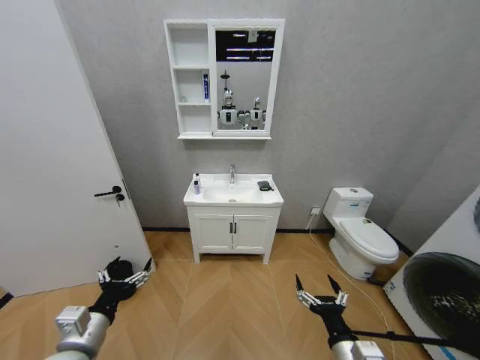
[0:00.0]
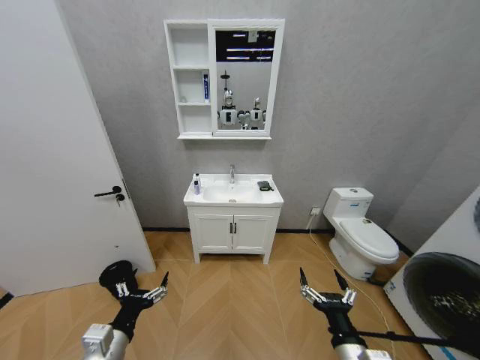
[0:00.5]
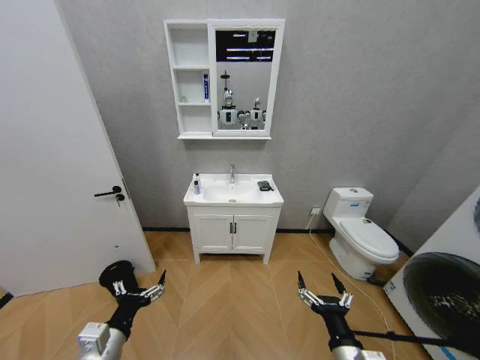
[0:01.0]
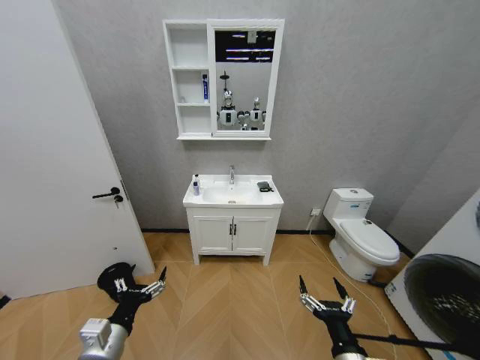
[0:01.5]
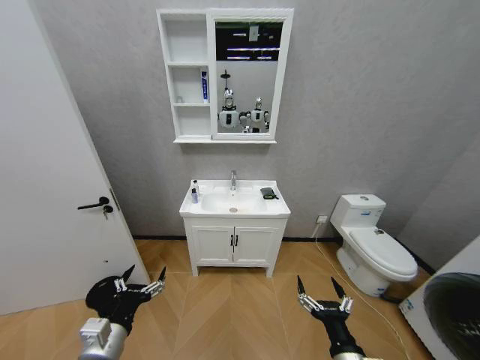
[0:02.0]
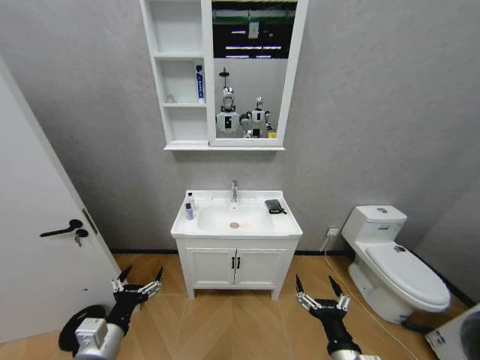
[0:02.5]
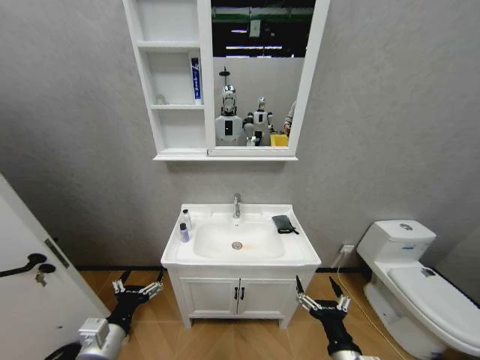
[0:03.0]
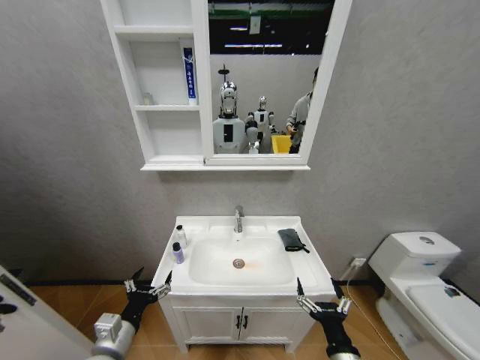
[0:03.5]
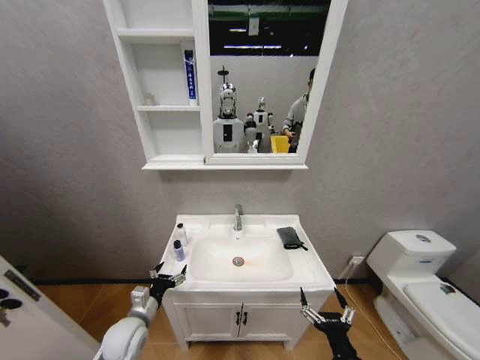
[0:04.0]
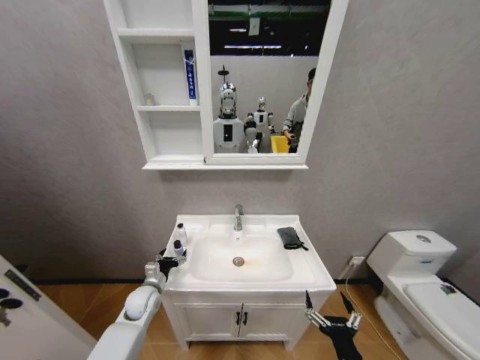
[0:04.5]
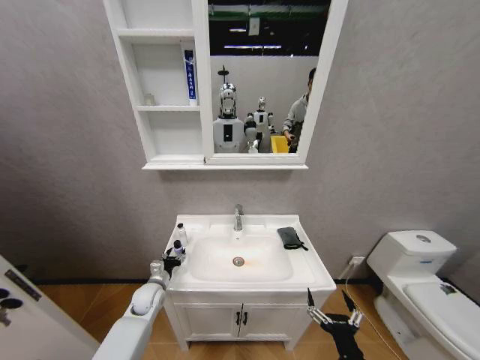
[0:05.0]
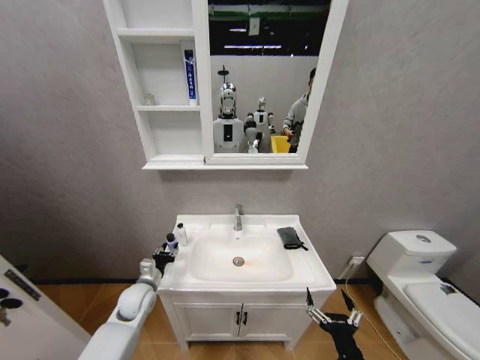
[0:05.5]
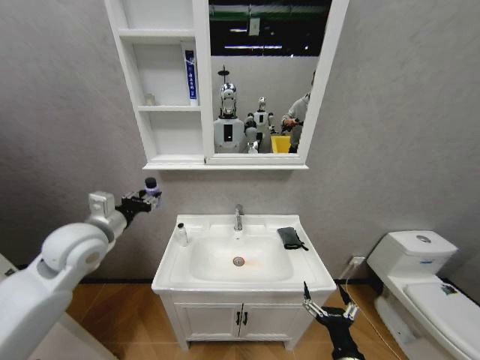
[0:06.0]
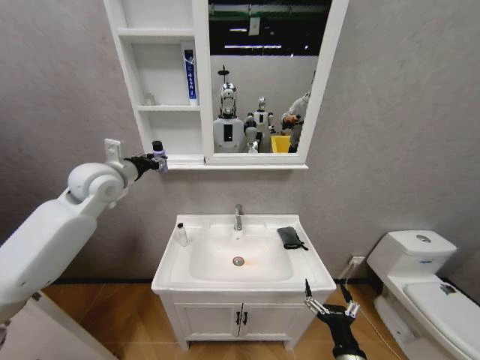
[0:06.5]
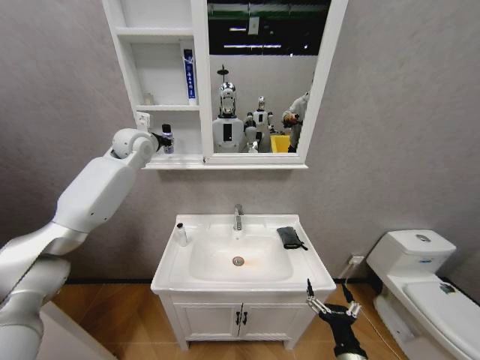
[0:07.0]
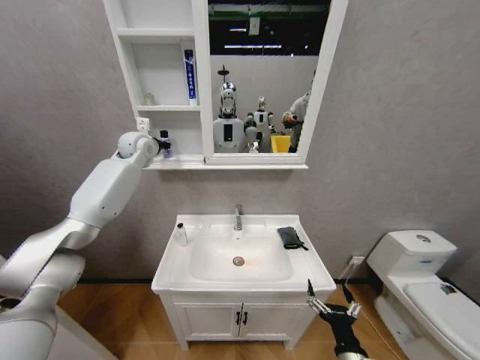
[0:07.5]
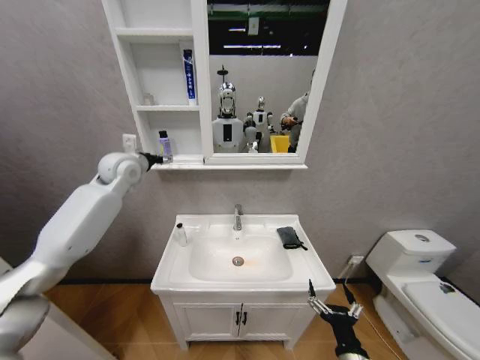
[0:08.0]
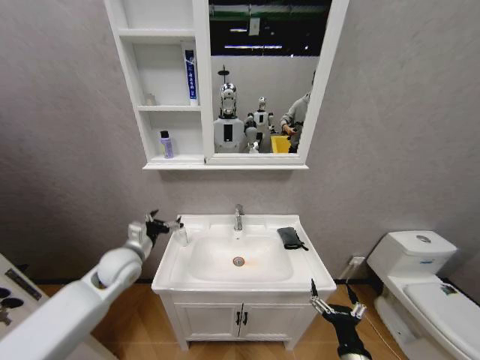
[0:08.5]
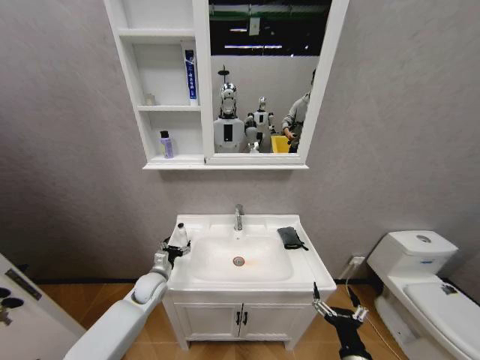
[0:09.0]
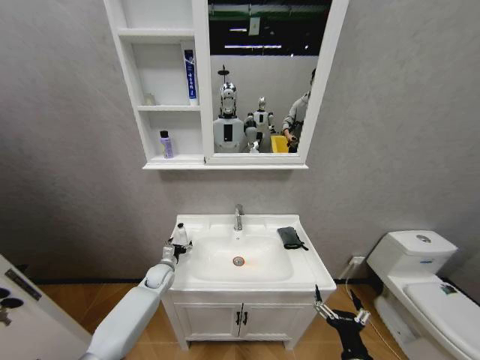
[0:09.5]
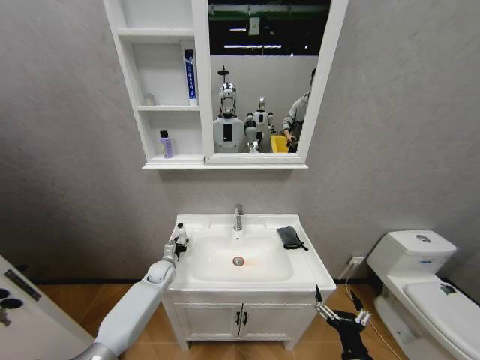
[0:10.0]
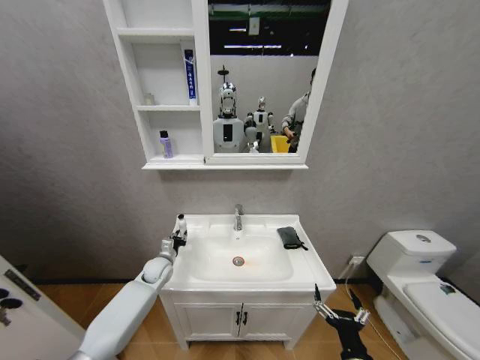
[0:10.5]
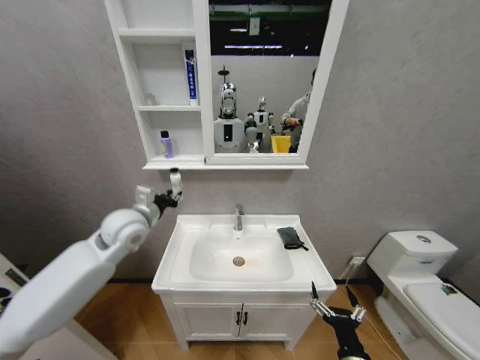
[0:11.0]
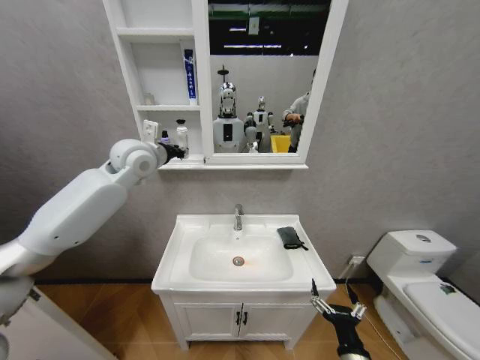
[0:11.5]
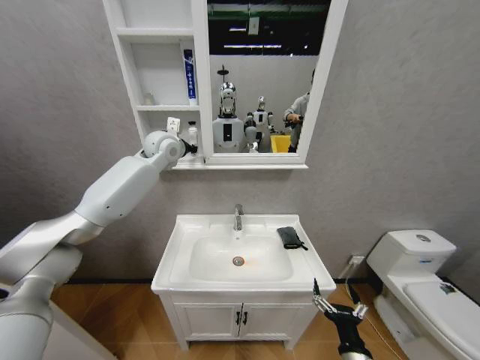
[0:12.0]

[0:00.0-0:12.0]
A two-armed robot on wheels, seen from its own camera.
Task of the whole recording: Move facial cleanser and shampoo from washbasin to cabinet, then wipe washbasin with towel.
0:02.0 to 0:04.0: The left gripper is displaced forward and downward by roughly 15 cm.
0:04.0 to 0:06.0: The left gripper is displaced upward by approximately 25 cm, and closes its fingers.
0:06.0 to 0:08.0: The left gripper heads forward, covering roughly 20 cm, and opens.
0:08.0 to 0:10.0: The left gripper goes some 40 cm downward, and closes its fingers.
0:10.0 to 0:12.0: The left gripper shifts some 50 cm upward, and closes up.

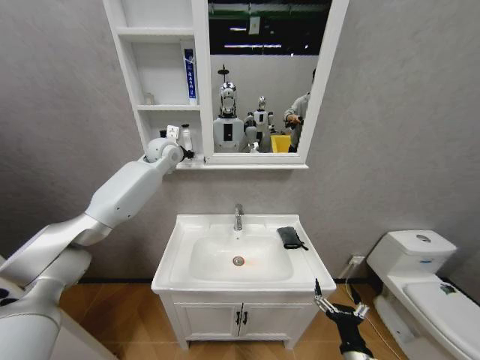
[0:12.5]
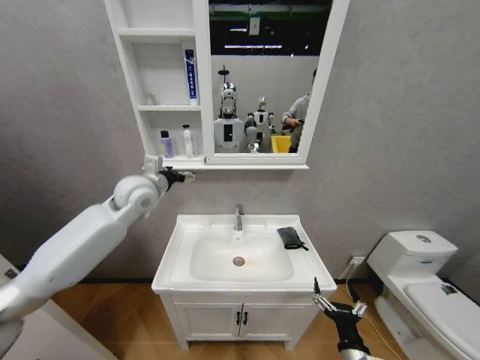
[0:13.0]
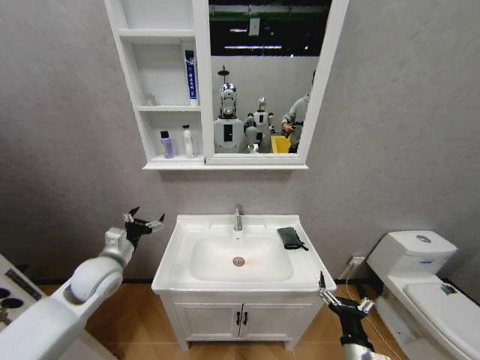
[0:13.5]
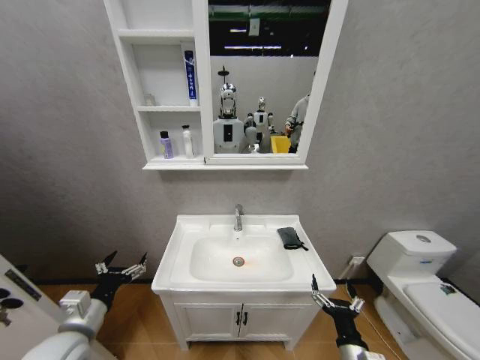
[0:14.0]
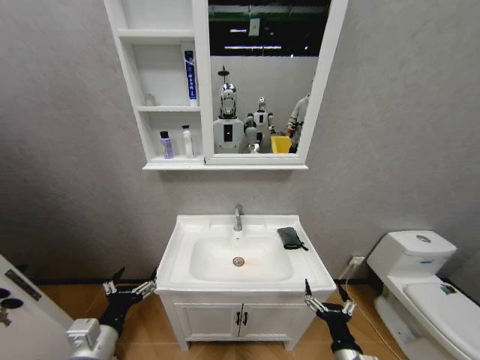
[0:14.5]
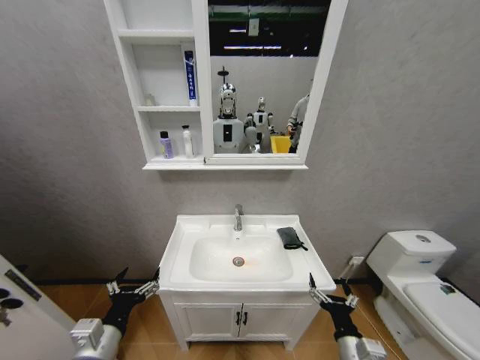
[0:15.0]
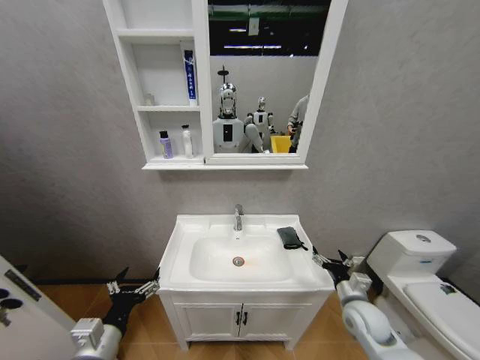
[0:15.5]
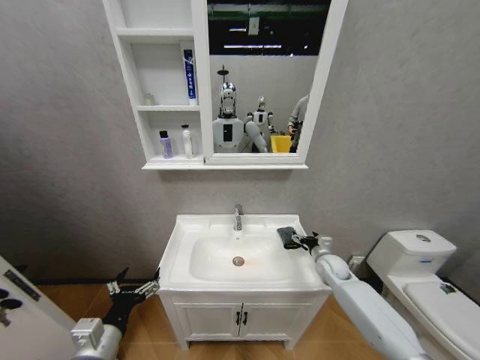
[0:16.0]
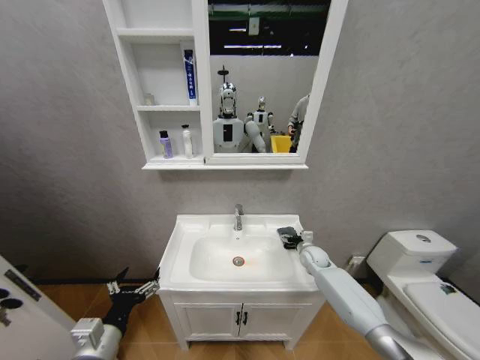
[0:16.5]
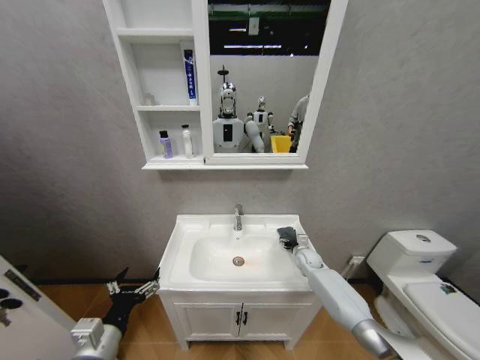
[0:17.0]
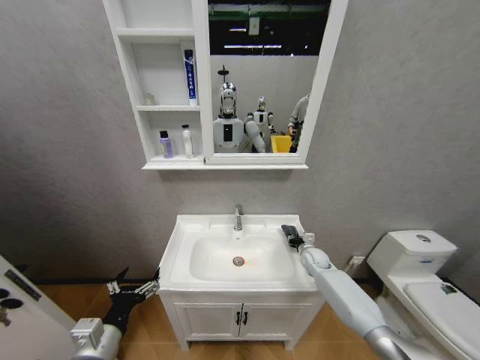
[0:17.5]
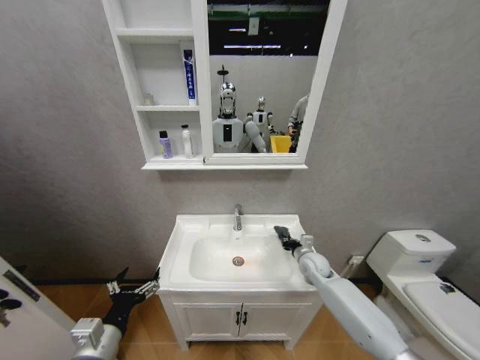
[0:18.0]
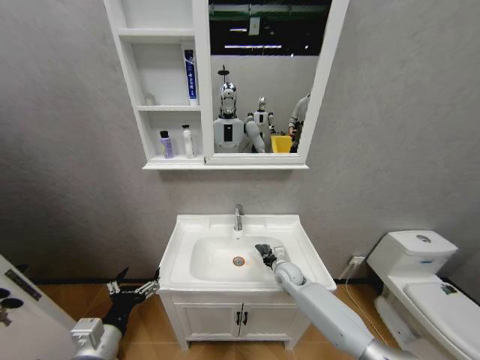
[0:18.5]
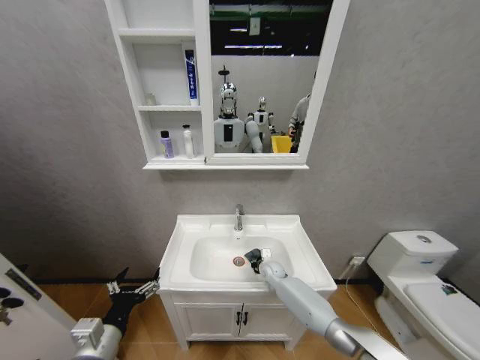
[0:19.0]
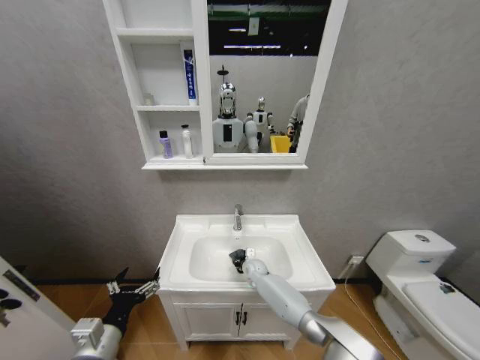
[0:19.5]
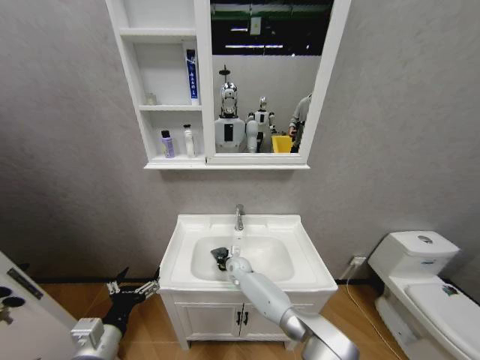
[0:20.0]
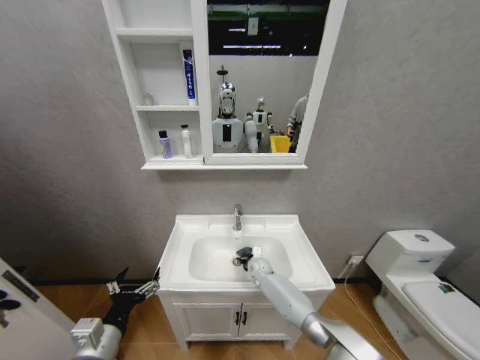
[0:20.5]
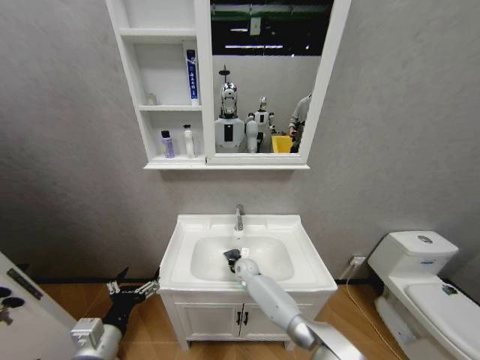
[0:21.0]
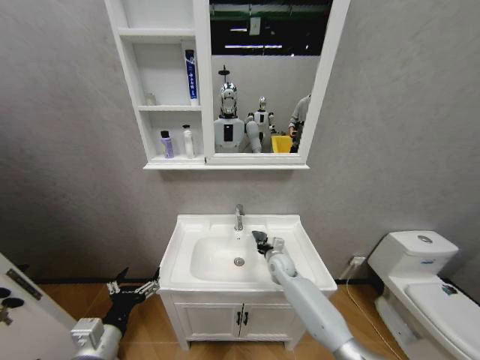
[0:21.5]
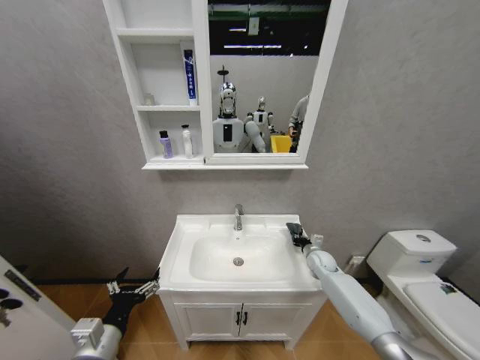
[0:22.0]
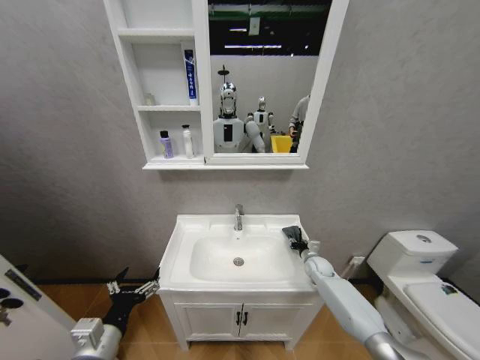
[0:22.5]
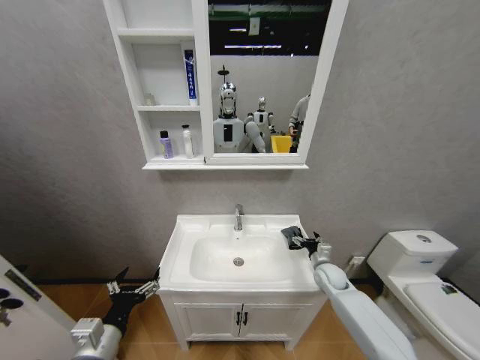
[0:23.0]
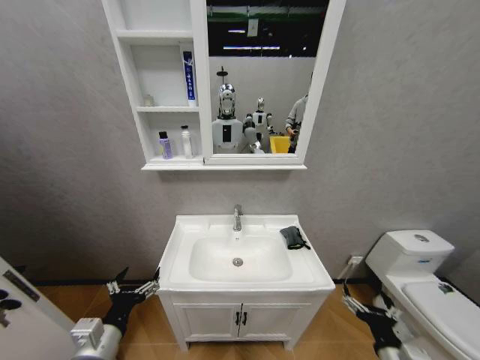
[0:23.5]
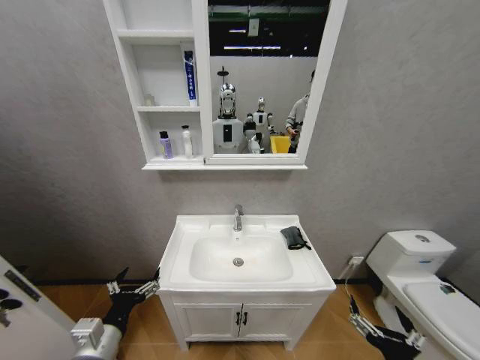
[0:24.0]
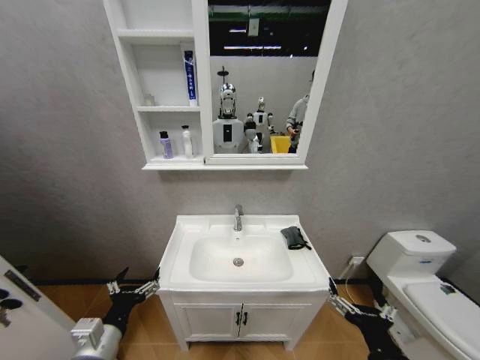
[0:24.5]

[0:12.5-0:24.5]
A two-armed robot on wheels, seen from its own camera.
Task of the whole recording: Move facial cleanser and shampoo from washbasin to cabinet, then wipe washbasin with towel.
0:12.5 to 0:14.5: The left gripper moves backward and downward, approximately 50 cm, and opens.
0:14.5 to 0:16.5: The right gripper travels forward by approximately 35 cm.
0:16.5 to 0:18.5: The right gripper shifts roughly 15 cm to the left and backward, and closes its fingers.
0:18.5 to 0:20.5: The right gripper moves to the left, forward and downward, approximately 10 cm.
0:20.5 to 0:22.5: The right gripper shifts approximately 25 cm to the right, and opens its fingers.
0:22.5 to 0:24.5: The right gripper shifts approximately 40 cm backward and upward, and opens its fingers.

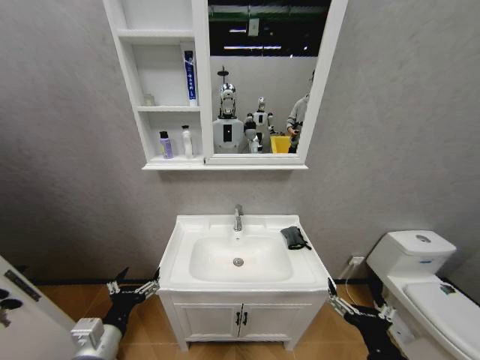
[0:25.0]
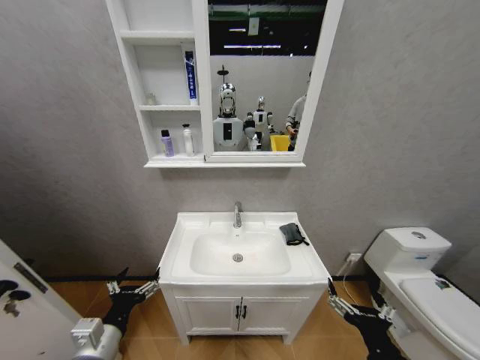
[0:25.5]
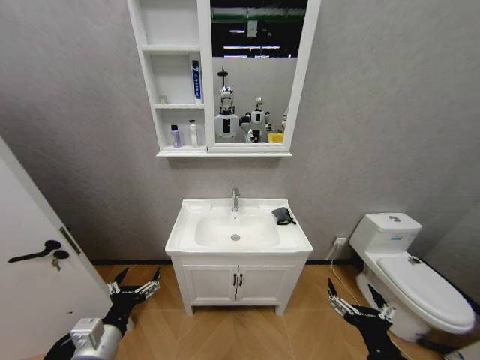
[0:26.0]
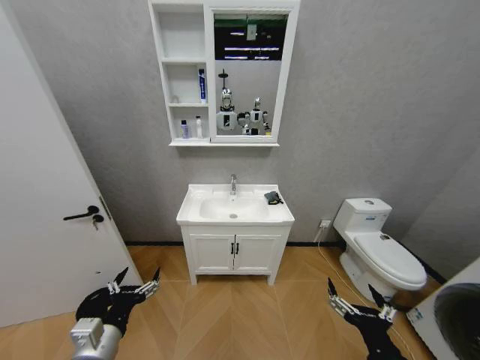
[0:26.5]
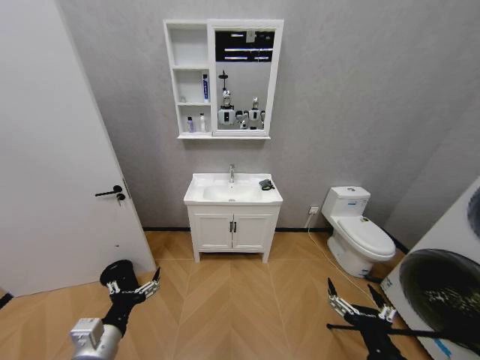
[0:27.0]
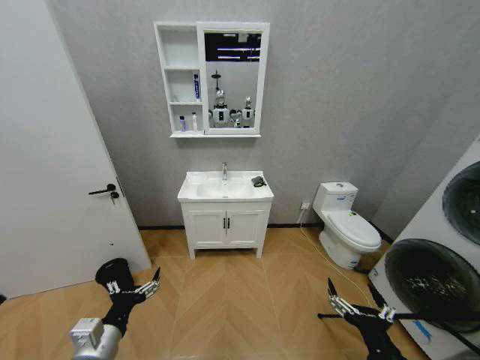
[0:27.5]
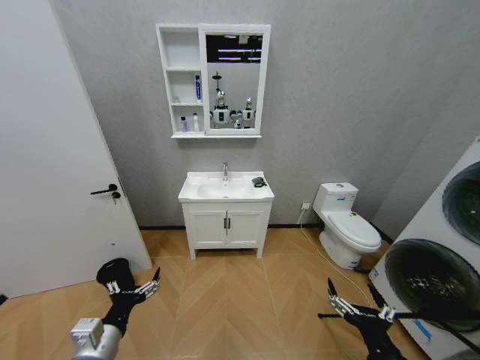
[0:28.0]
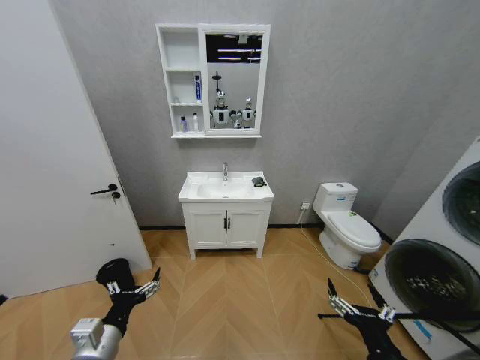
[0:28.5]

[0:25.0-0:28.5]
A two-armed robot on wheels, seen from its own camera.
Task of the whole recording: Move facial cleanser and shampoo from washbasin to cabinet, then wipe washbasin with towel.
0:27.0 to 0:28.5: The two grippers keep their place.
